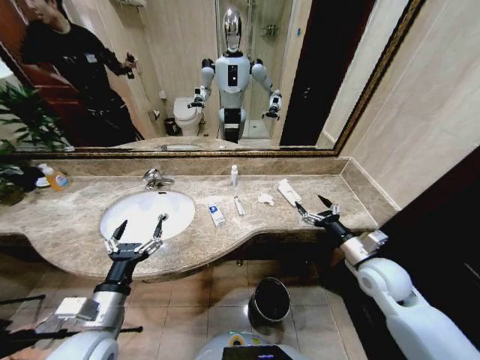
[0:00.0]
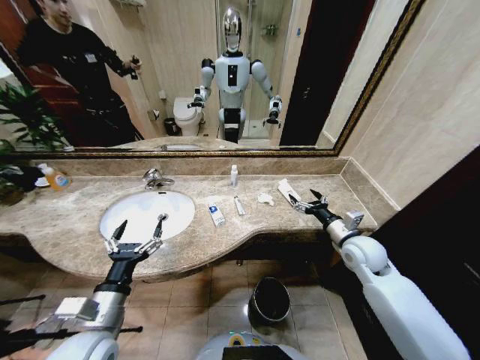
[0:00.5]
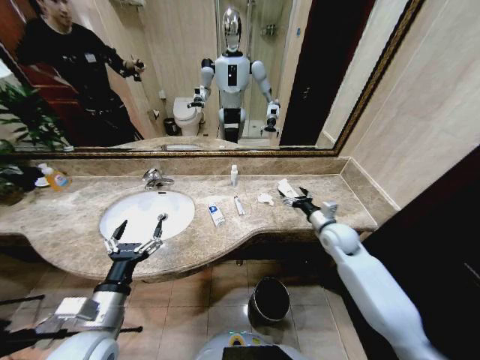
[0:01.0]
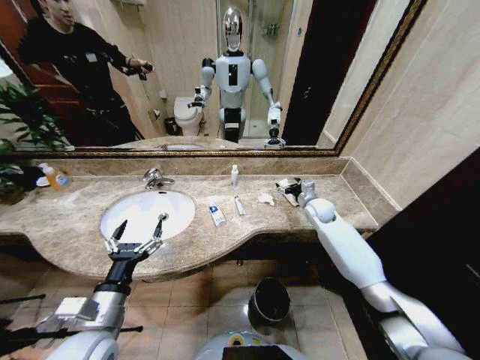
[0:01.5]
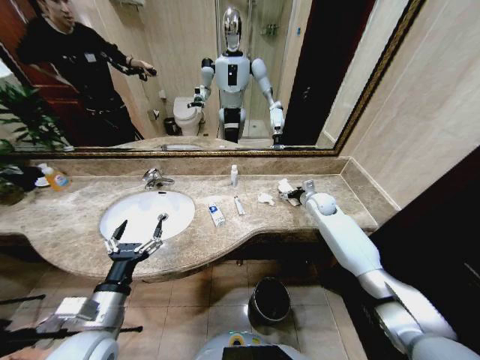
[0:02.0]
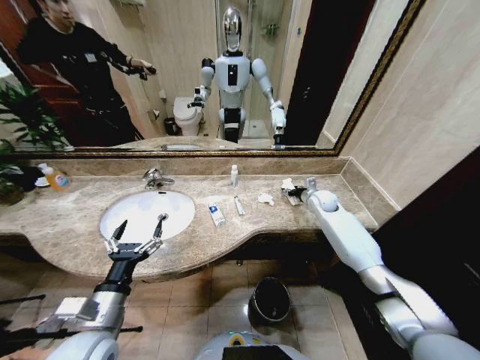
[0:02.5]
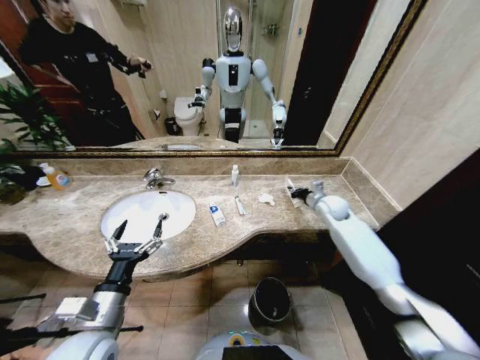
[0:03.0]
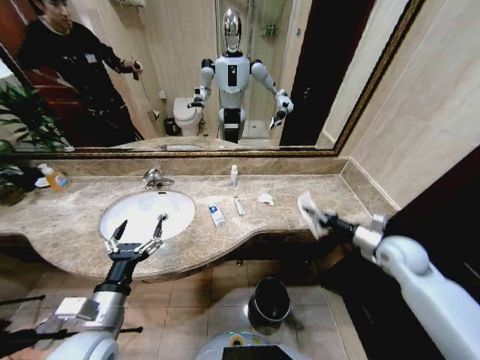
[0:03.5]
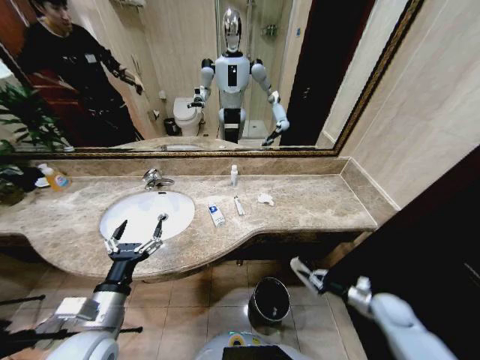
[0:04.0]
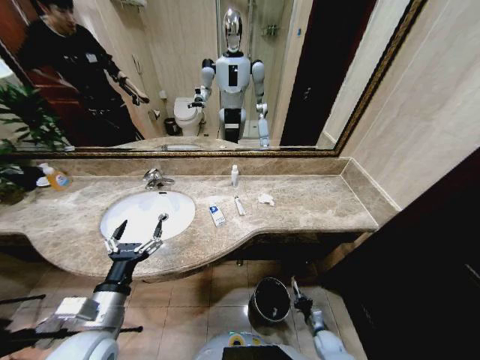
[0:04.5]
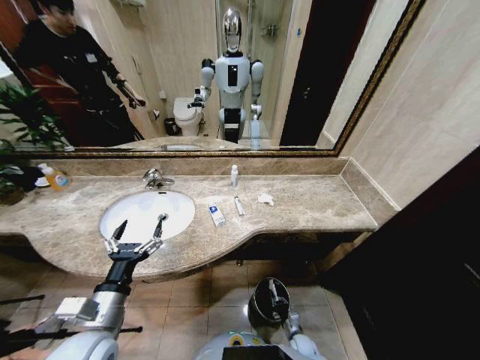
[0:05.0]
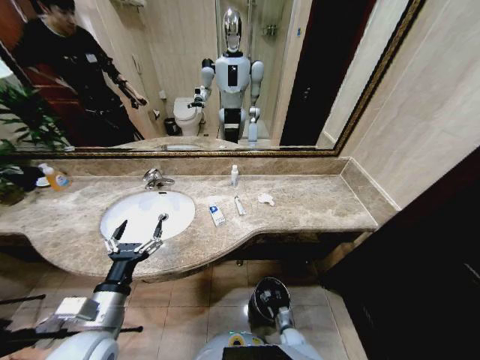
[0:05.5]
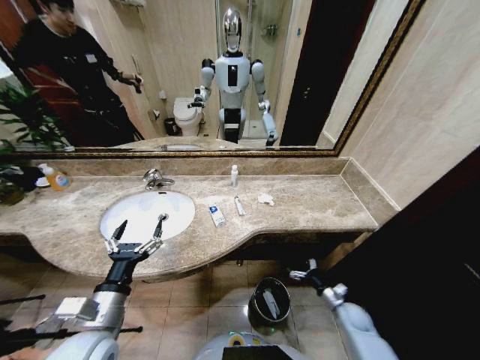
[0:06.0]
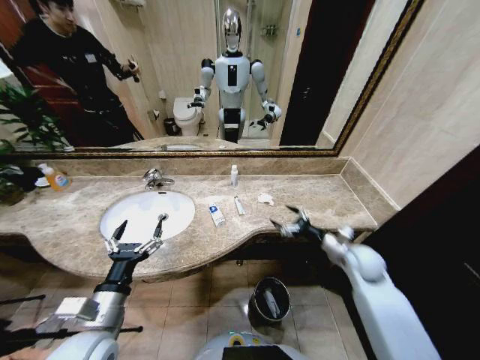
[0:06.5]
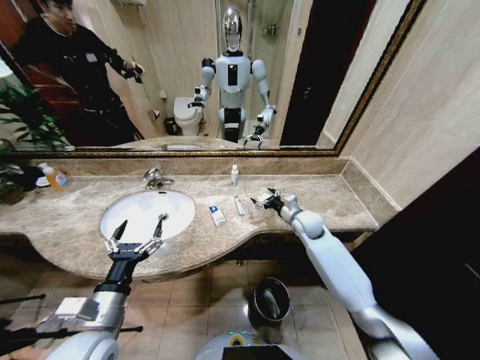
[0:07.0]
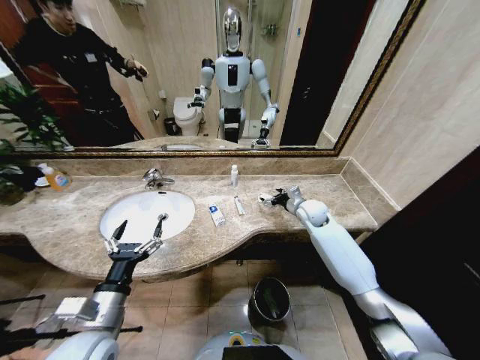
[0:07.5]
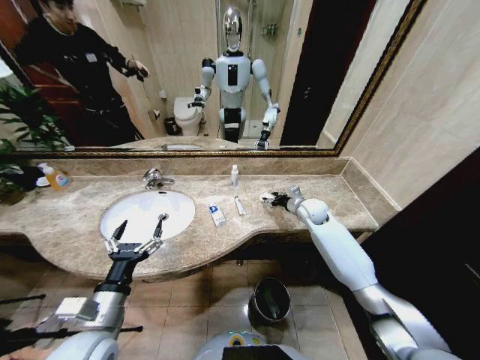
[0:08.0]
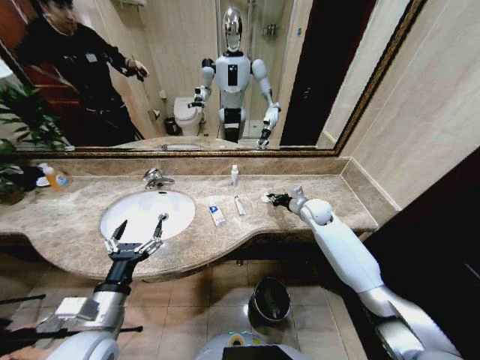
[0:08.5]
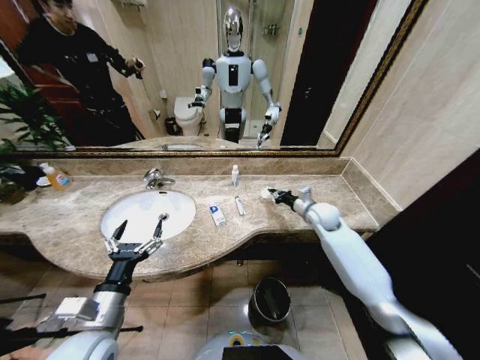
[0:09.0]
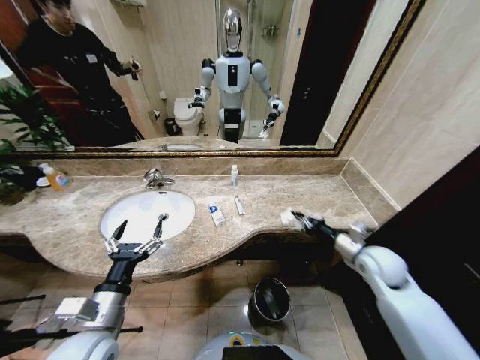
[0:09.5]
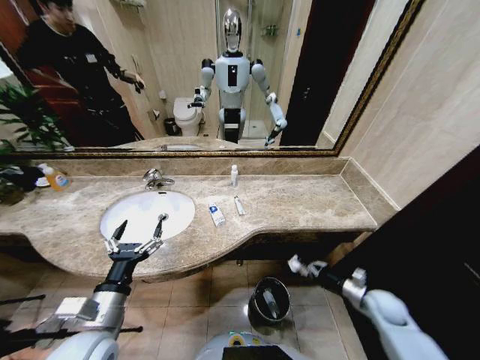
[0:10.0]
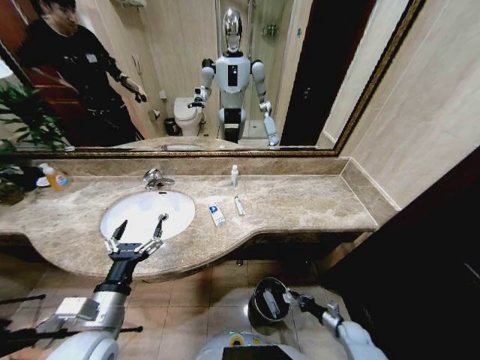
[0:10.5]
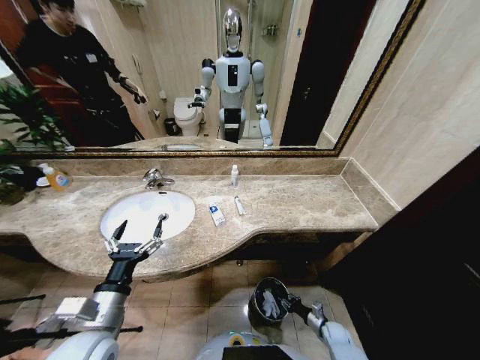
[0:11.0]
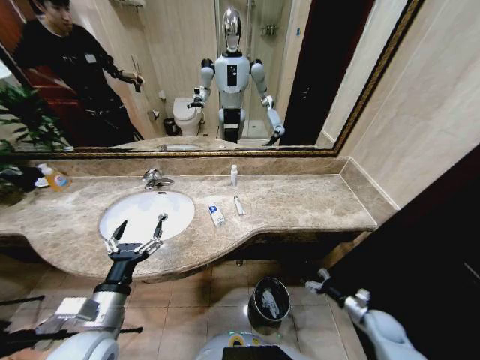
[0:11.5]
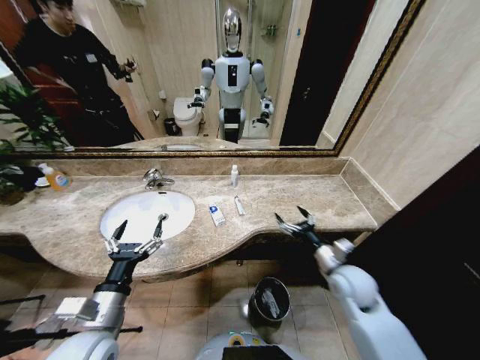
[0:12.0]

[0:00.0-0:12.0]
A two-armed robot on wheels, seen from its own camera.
Task of the whole recording: Pick up the trash from the sink and place it in the trash bin.
0:02.0 to 0:04.0: The right gripper travels backward, downward and to the right by some 40 cm, and closes its fingers.
0:04.0 to 0:06.0: The right gripper goes roughly 5 cm downward, travels to the left and back again, about 25 cm each way, and opens up.
0:06.0 to 0:08.0: The right gripper travels upward, forward and to the left by approximately 40 cm.
0:08.0 to 0:10.0: The right gripper heads backward, downward and to the right, covering approximately 40 cm, and closes its fingers.
0:10.0 to 0:12.0: The right gripper moves upward and to the left, some 25 cm, and opens up.

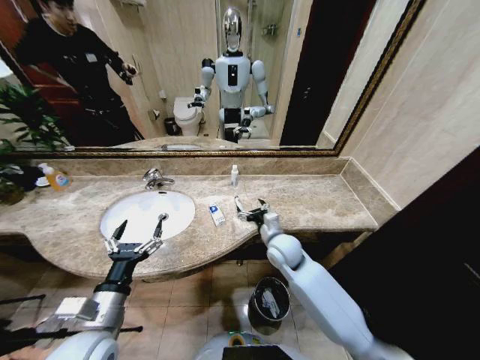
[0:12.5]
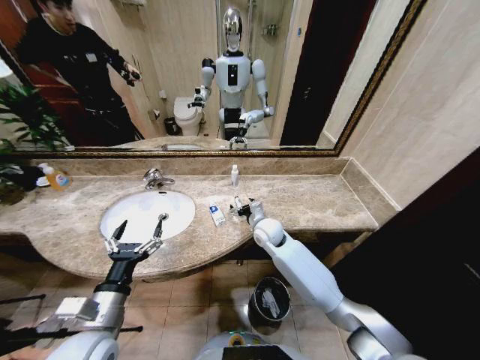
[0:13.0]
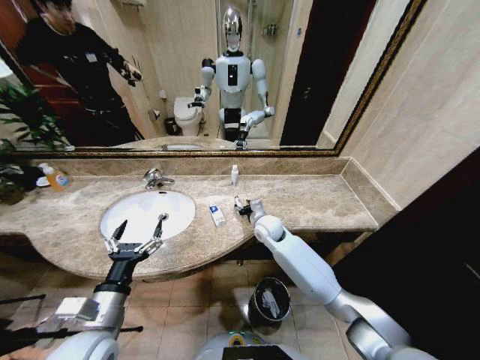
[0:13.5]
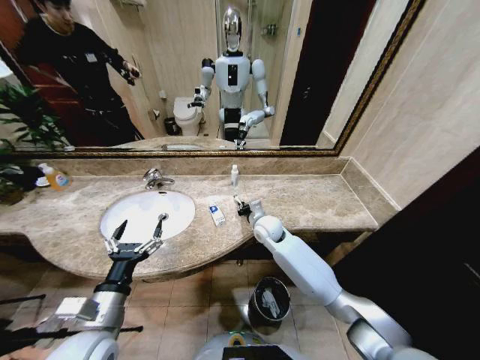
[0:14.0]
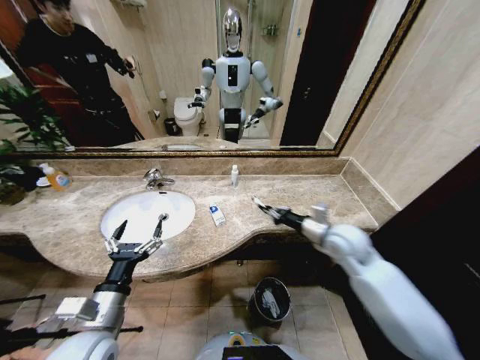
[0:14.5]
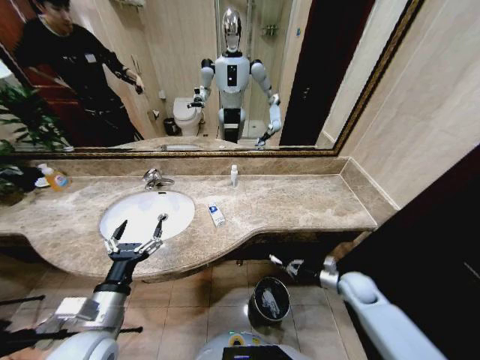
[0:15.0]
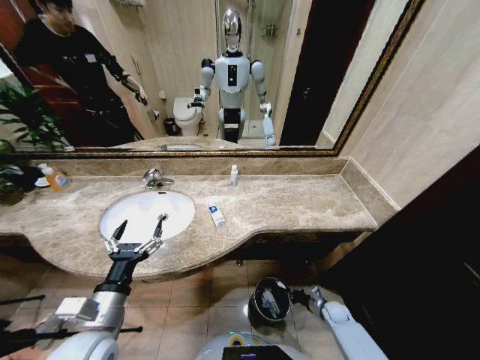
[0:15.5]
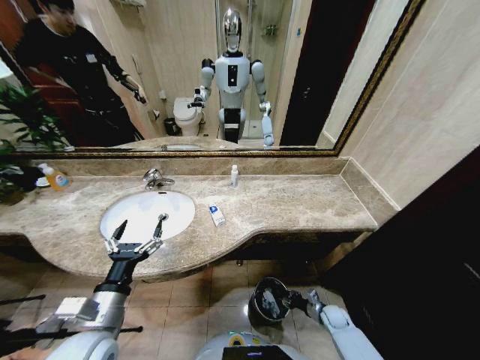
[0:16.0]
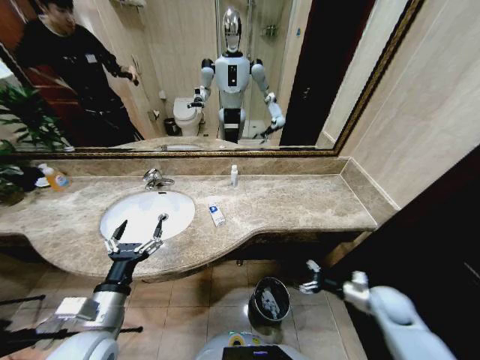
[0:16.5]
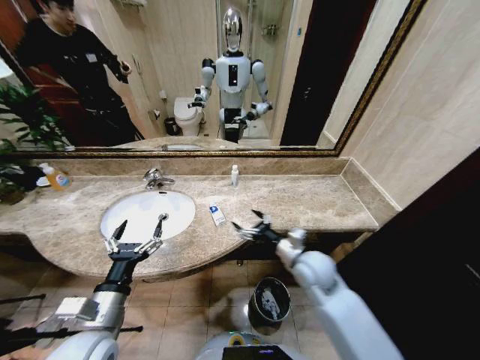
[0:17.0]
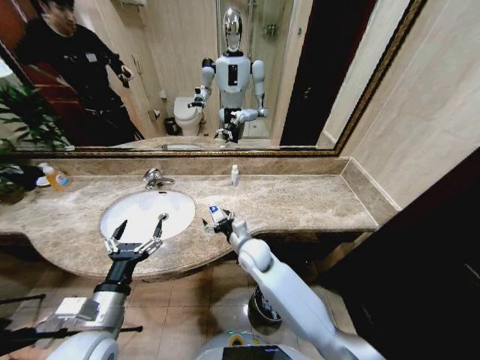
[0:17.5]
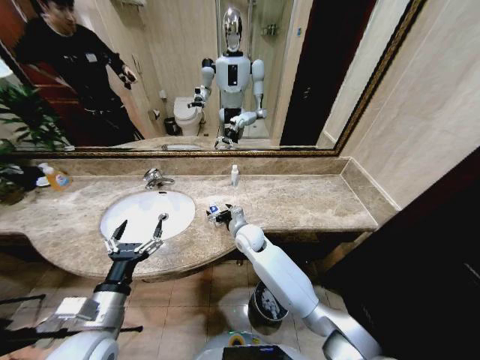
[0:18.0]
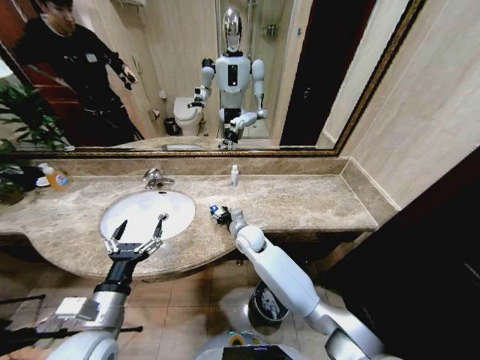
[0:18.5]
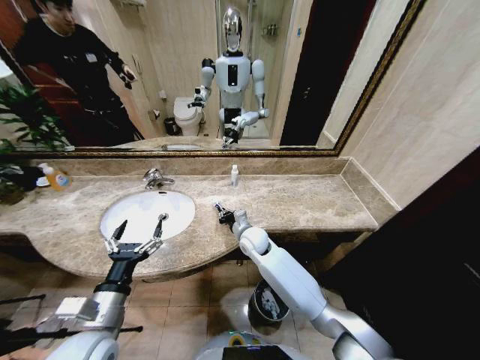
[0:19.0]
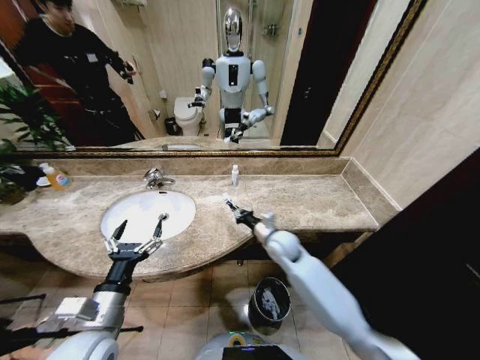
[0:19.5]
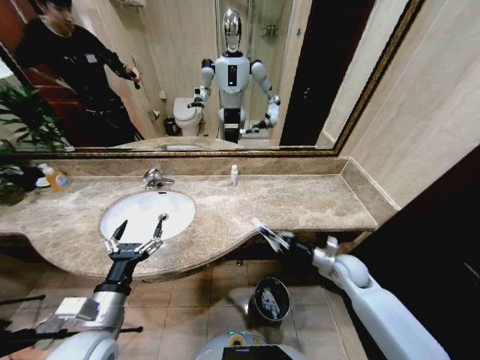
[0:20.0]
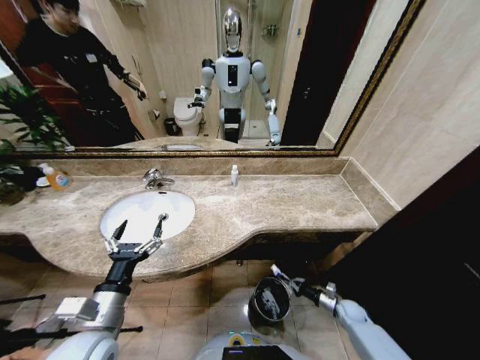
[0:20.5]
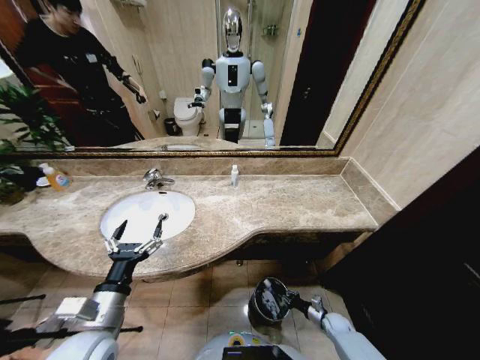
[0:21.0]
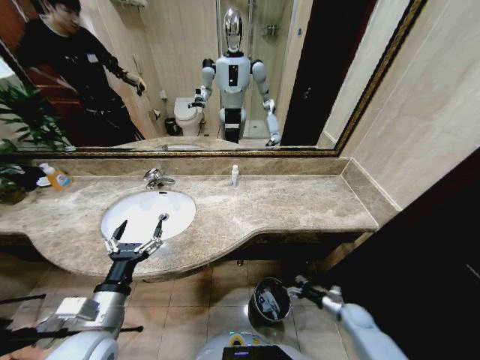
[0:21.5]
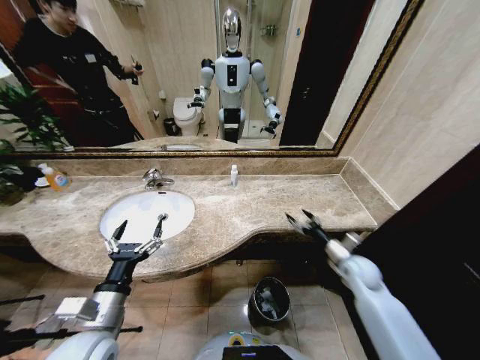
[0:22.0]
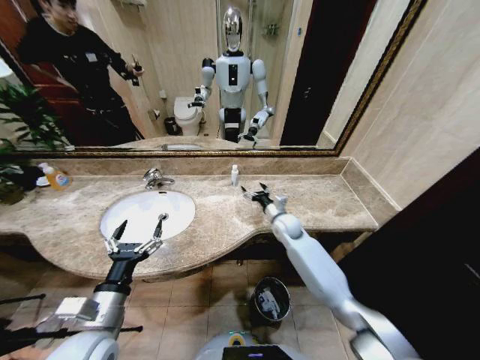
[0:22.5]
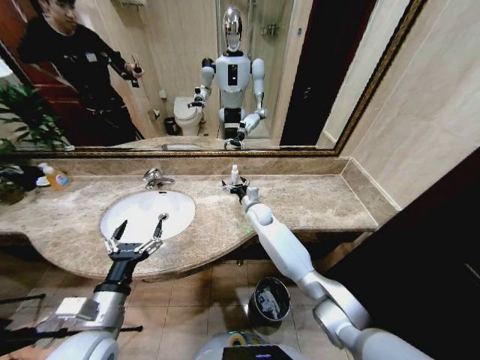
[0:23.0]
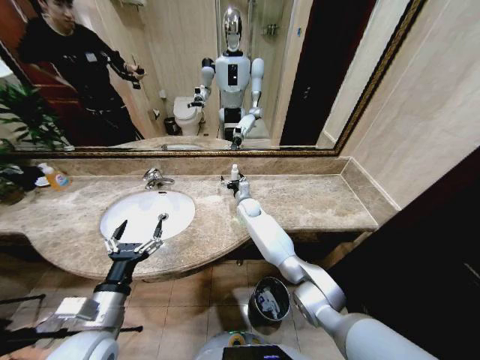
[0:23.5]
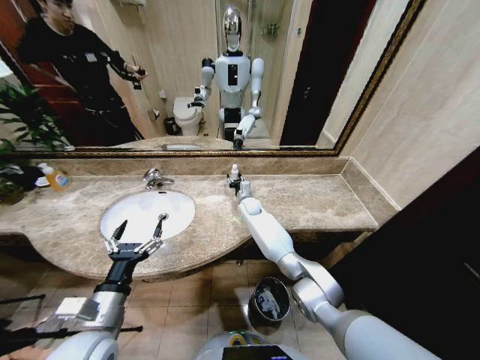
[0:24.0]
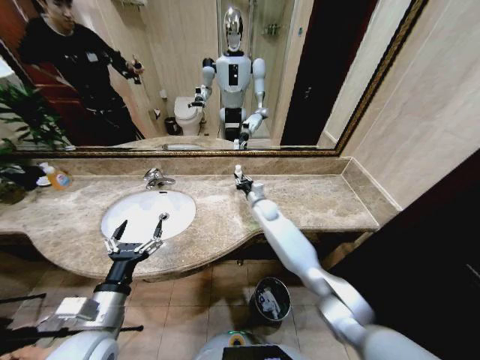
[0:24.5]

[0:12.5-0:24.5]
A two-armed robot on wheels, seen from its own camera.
Task of the whole recording: Pick up the trash from the sink and place it in the trash bin.
0:12.5 to 0:14.5: The right gripper goes approximately 15 cm to the right and upward, and closes up.
0:14.5 to 0:16.5: The right gripper shifts about 25 cm downward, to the right and backward, and opens.
0:16.5 to 0:18.5: The right gripper shifts approximately 40 cm to the left and forward.
0:18.5 to 0:20.5: The right gripper moves to the right, downward and backward, some 50 cm, and closes.
0:20.5 to 0:22.5: The right gripper travels upward, to the left and forward by roughly 40 cm, and opens up.
0:22.5 to 0:24.5: The right gripper travels forward and to the left by approximately 10 cm, and closes its fingers.

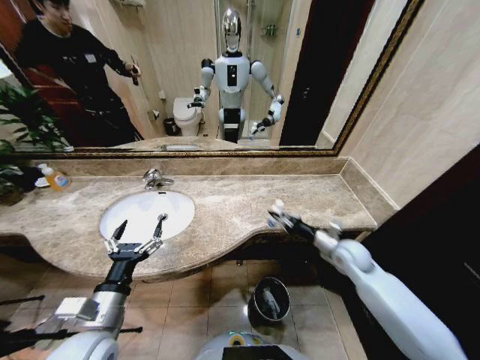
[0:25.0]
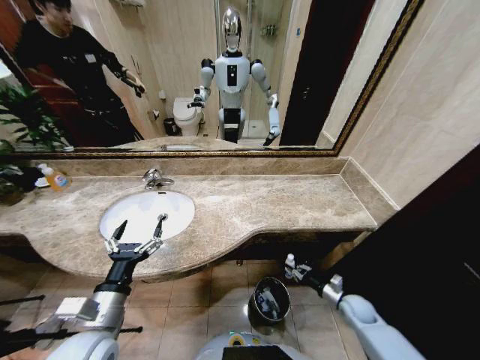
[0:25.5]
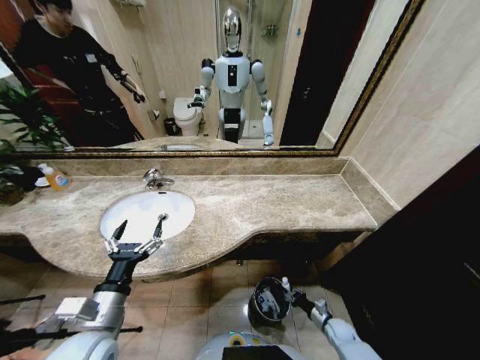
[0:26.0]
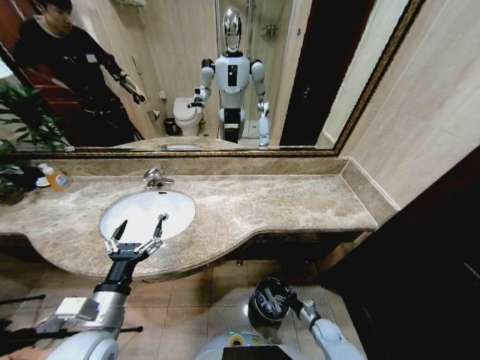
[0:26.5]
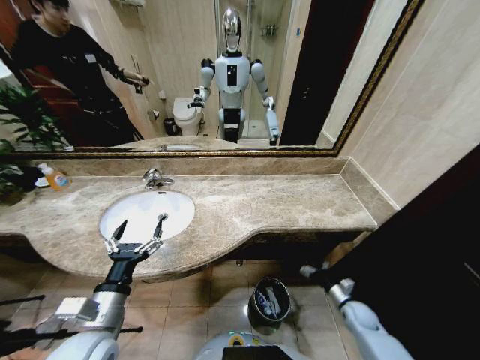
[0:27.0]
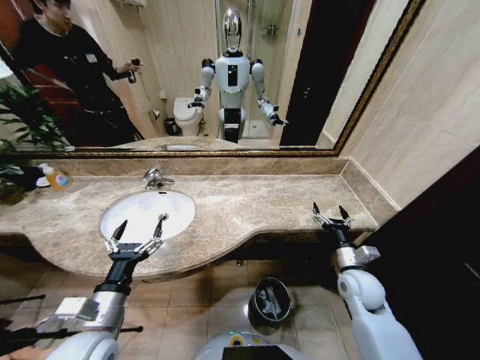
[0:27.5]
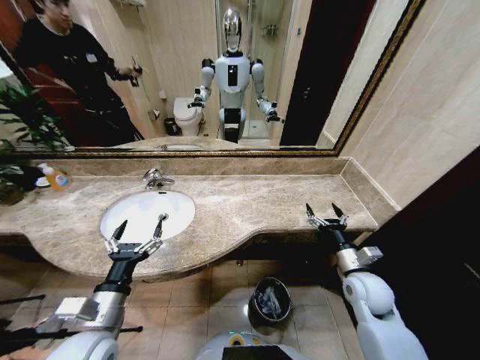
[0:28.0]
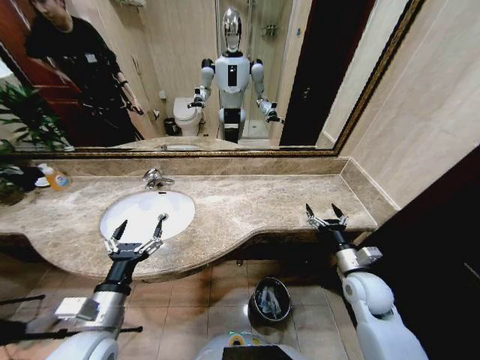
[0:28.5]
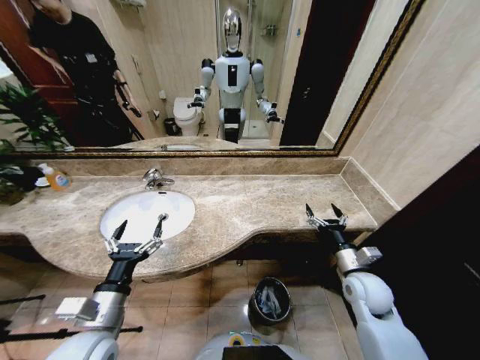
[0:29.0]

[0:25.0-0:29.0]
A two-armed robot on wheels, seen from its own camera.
Task of the whole recording: Pick up the trash from the sink and place it in the trash bin.
0:25.0 to 0:27.0: The right gripper moves downward and backward, some 25 cm, and opens up.
0:27.0 to 0:29.0: The right gripper moves upward and to the left, roughly 25 cm.
